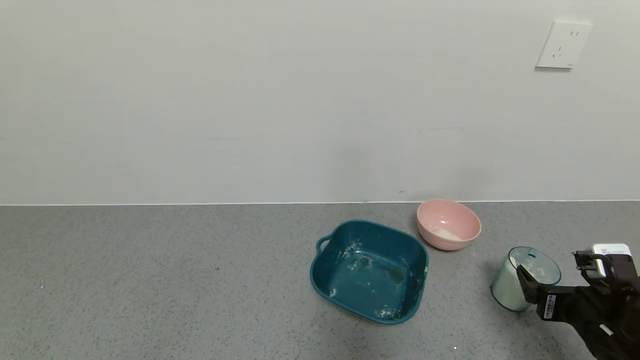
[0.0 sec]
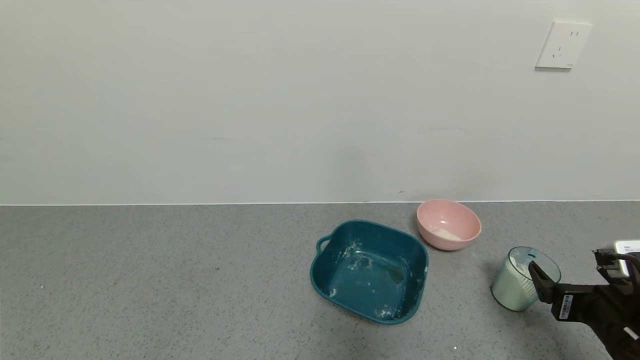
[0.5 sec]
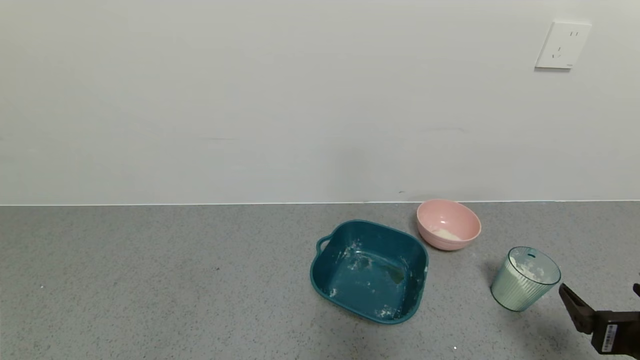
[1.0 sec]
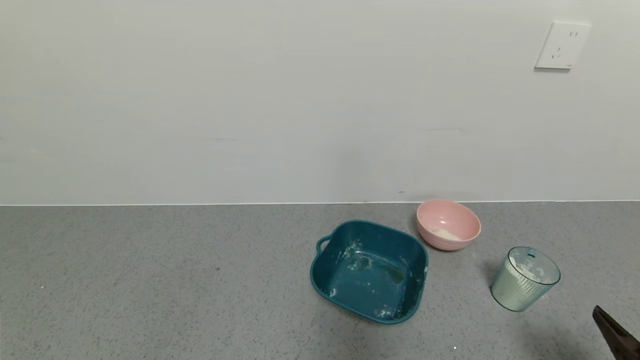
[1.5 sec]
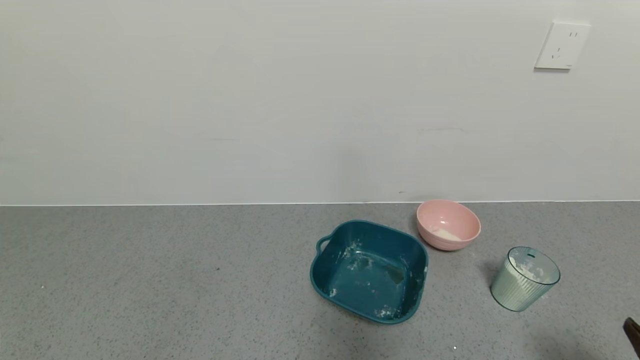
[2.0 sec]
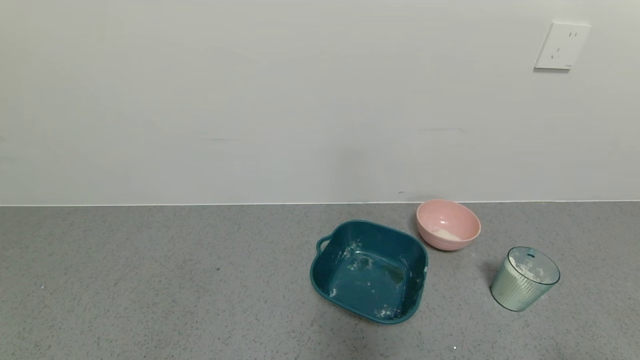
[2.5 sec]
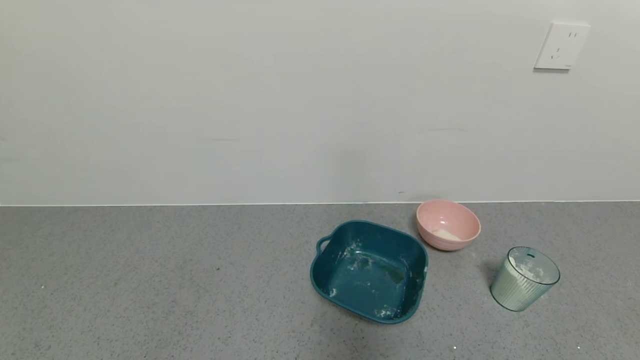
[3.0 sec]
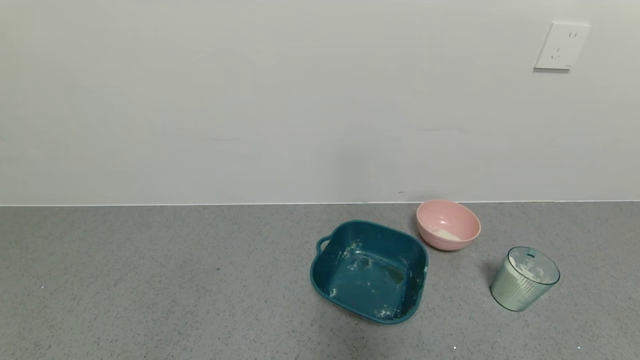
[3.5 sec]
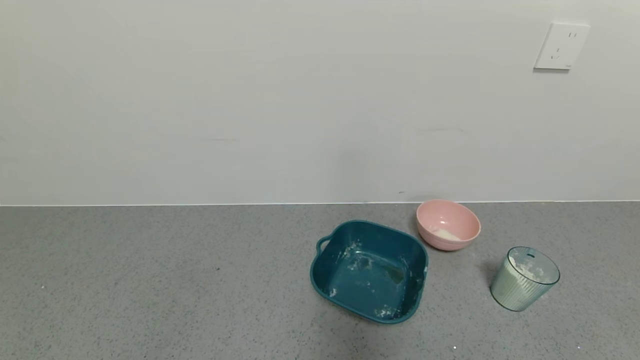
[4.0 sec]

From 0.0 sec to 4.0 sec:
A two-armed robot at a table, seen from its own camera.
Task of the whole recording: use a gripper to pick up the cup and pour the powder into a bowl or tray.
From 0.0 sec to 2.0 sec: The right gripper heads backward, covering approximately 15 cm.

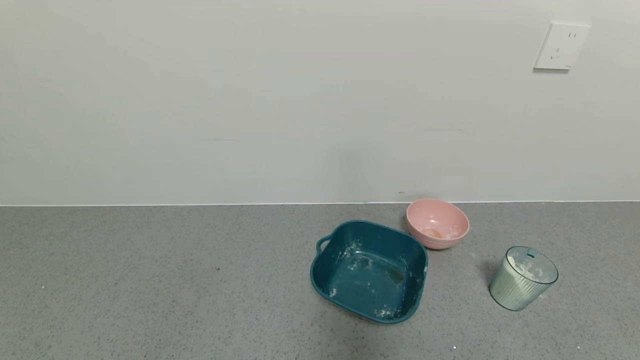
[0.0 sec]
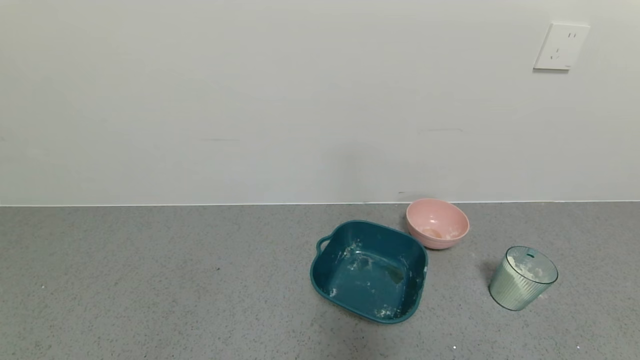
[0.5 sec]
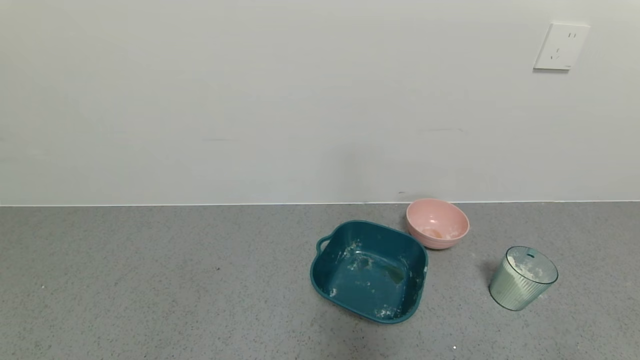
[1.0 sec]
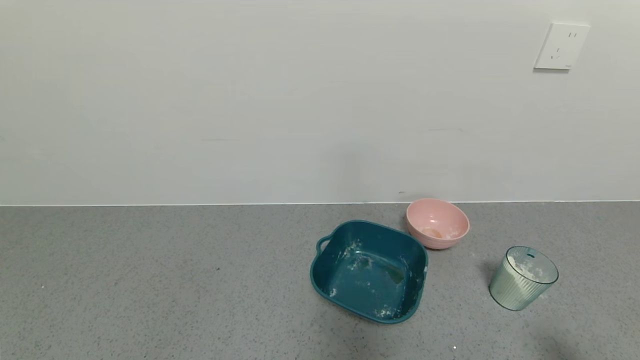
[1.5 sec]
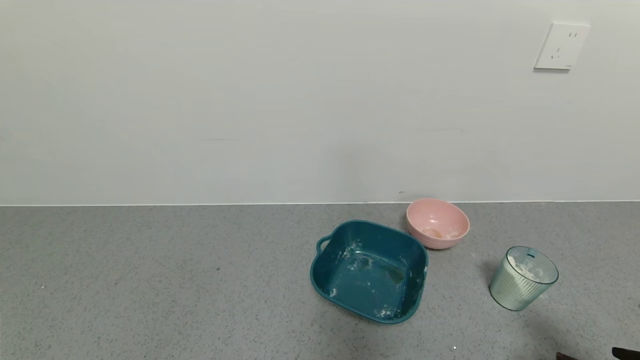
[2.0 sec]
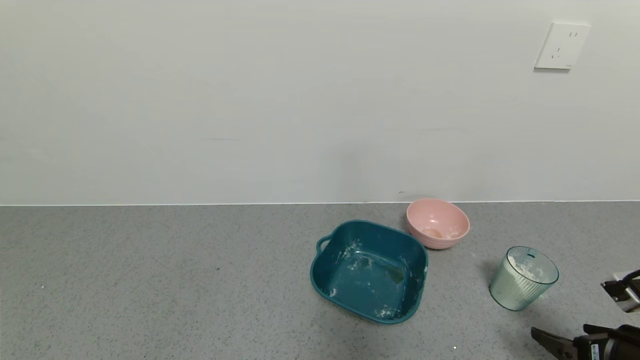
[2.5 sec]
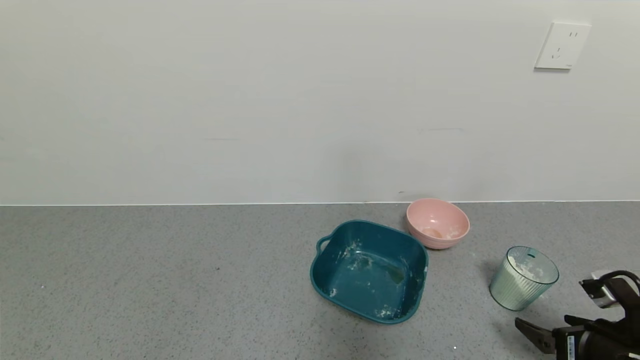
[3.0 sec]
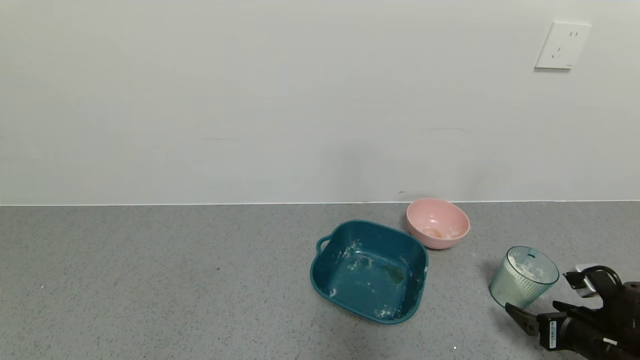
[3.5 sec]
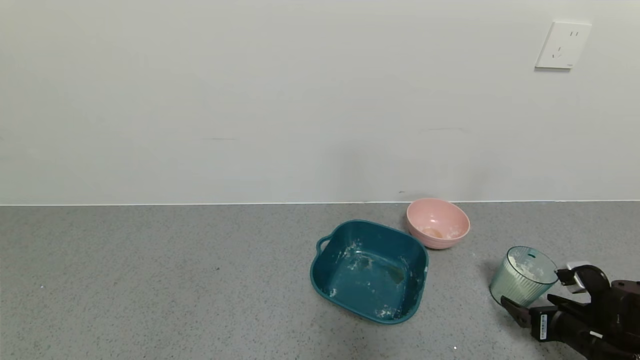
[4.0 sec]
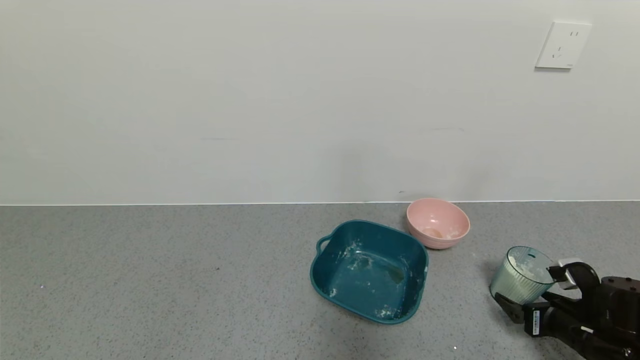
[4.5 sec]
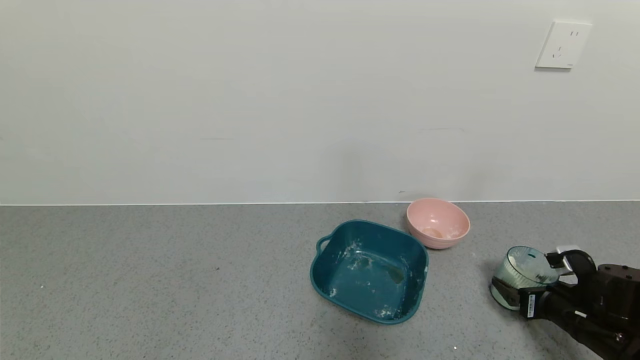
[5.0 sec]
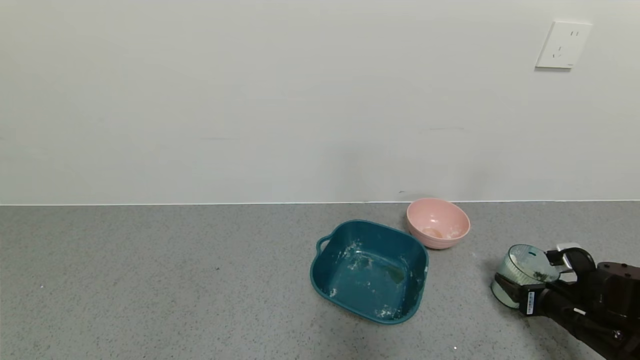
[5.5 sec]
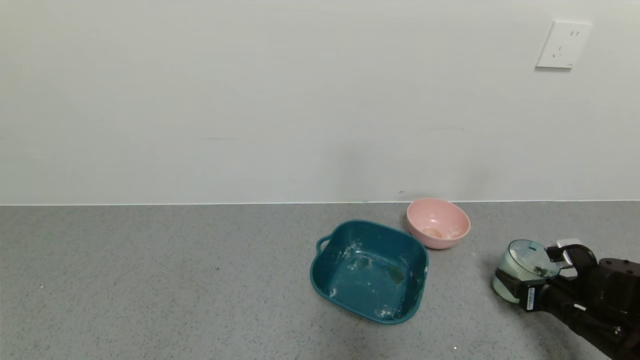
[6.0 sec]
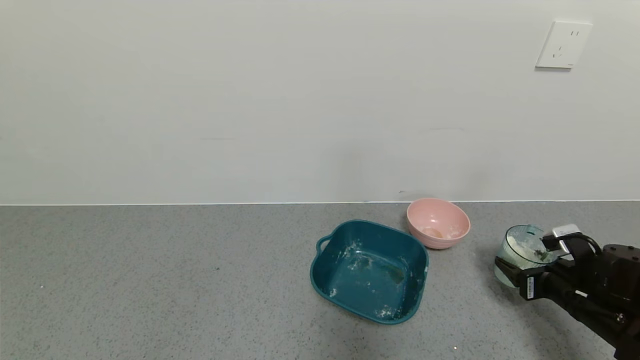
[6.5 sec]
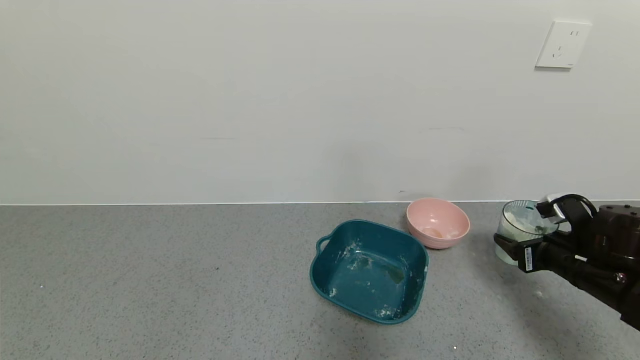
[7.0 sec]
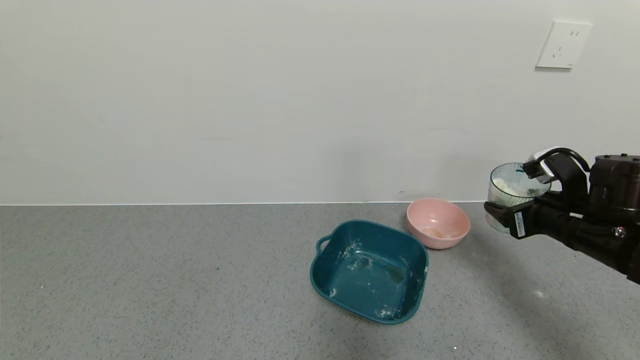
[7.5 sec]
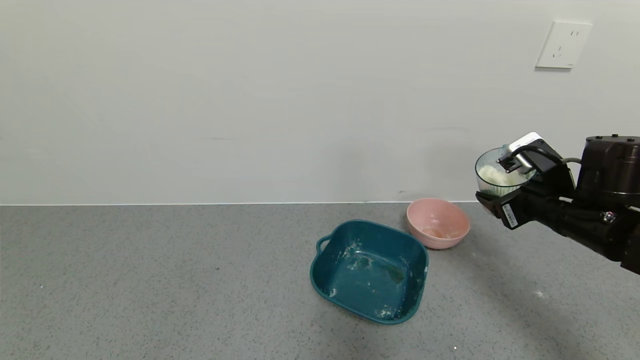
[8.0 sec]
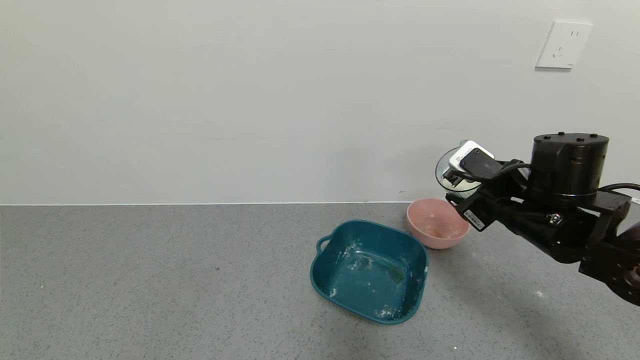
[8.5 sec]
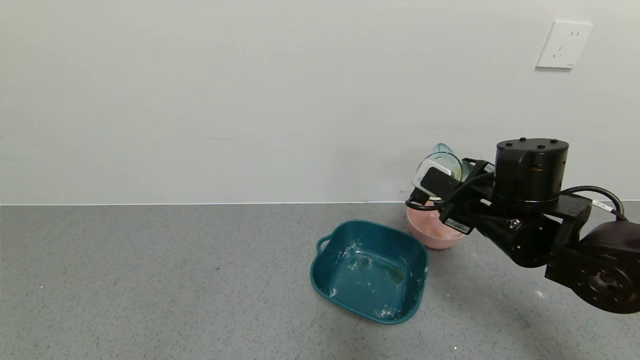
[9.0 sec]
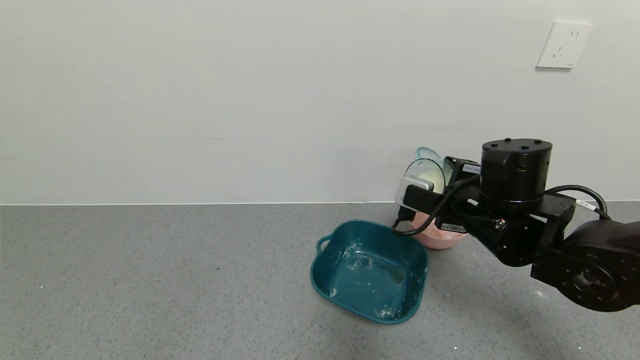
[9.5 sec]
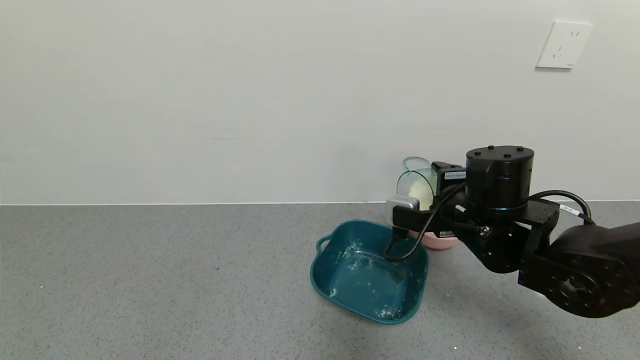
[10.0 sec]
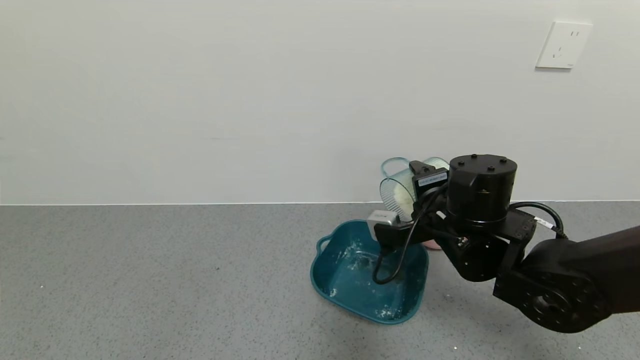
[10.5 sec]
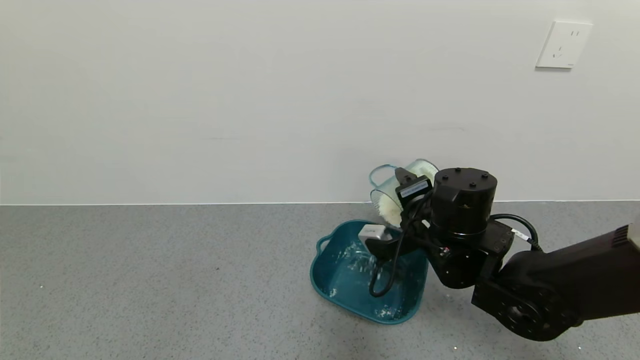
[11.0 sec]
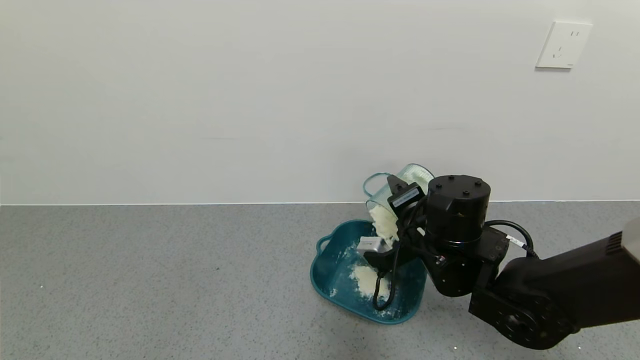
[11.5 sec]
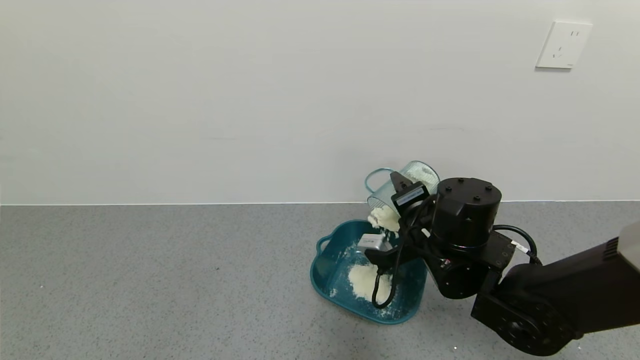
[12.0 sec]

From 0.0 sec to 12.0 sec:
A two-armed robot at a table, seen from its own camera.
Task of the whole recording: use a gripper to pick up the cup and pour the powder into a bowl or tray.
Step, from 0.0 sec to 6.0 sec: Pick up blue cup filled with milk powder with right gripper.
From 0.0 sec to 2.0 sec: The right gripper travels forward by roughly 15 cm.
From 2.0 sec to 4.0 sec: The right gripper travels forward and downward by roughly 15 cm.
From 4.0 sec to 6.0 sec: The right gripper closes its fingers.
From 6.0 sec to 8.0 sec: The right gripper heads upward and to the left, covering some 20 cm.
From 8.0 sec to 10.0 sec: The right gripper is displaced to the left by approximately 10 cm.
From 10.0 sec to 12.0 sec: The right gripper changes place by about 5 cm.

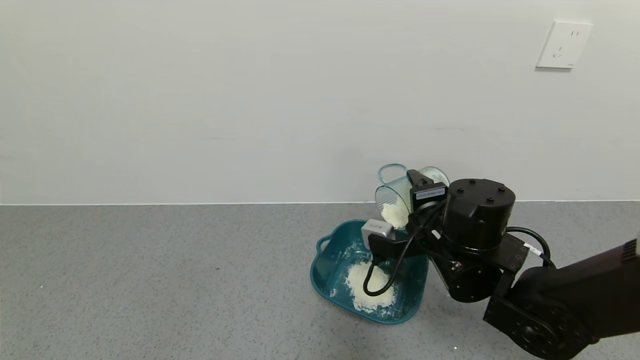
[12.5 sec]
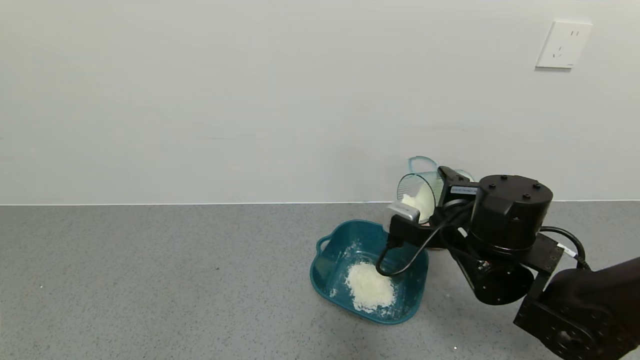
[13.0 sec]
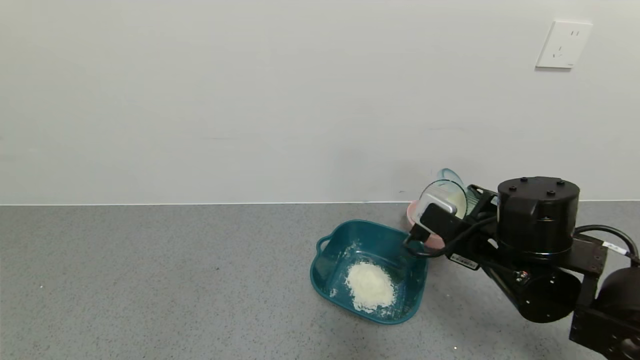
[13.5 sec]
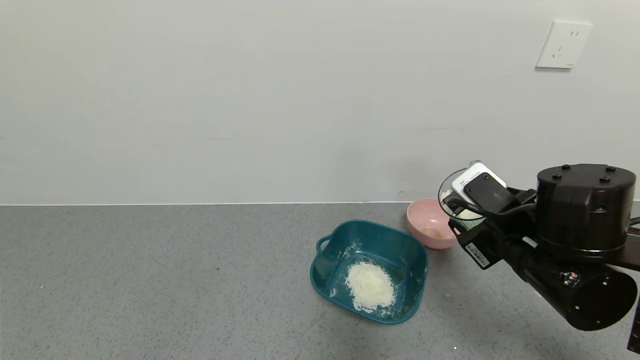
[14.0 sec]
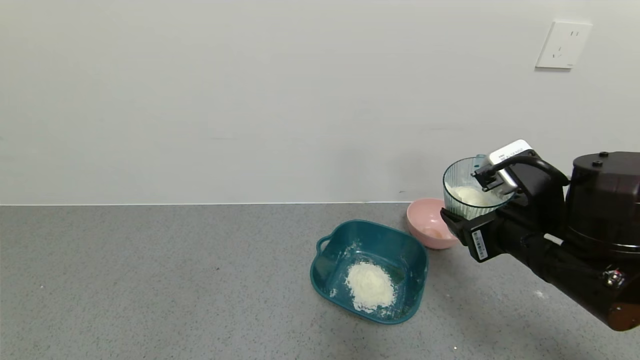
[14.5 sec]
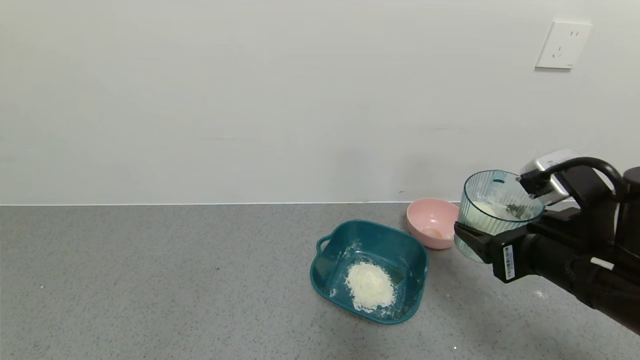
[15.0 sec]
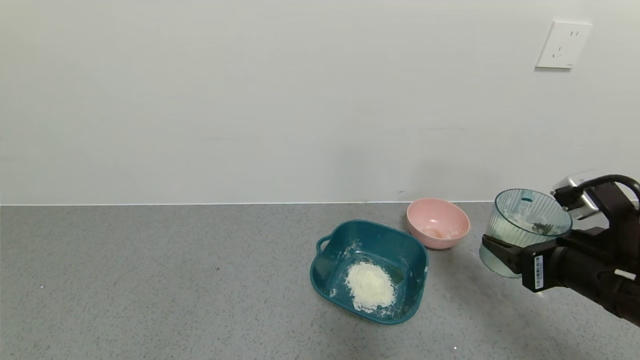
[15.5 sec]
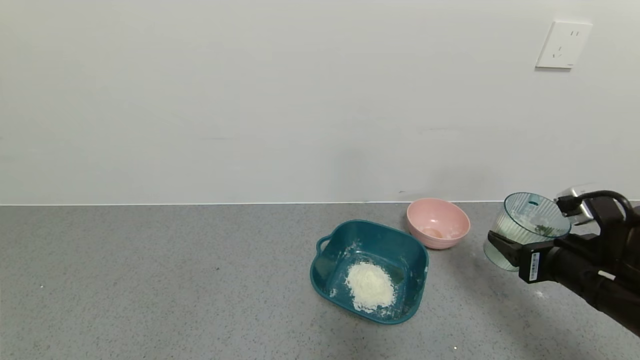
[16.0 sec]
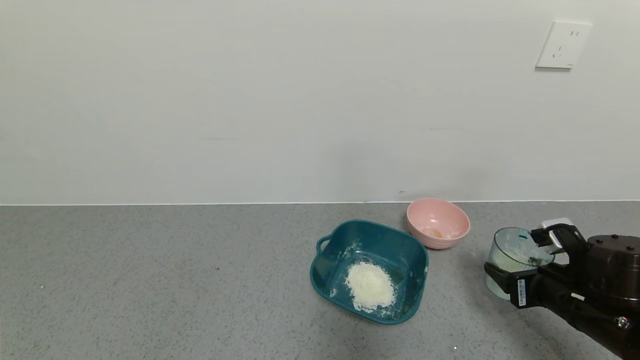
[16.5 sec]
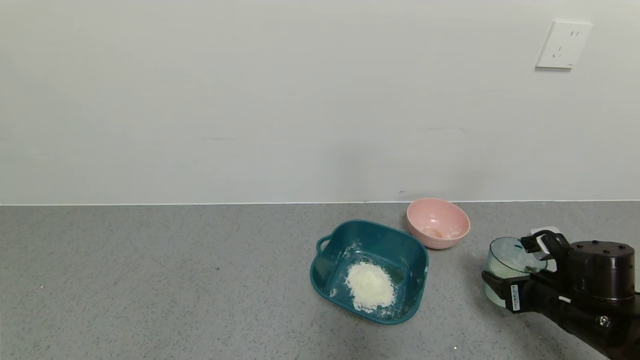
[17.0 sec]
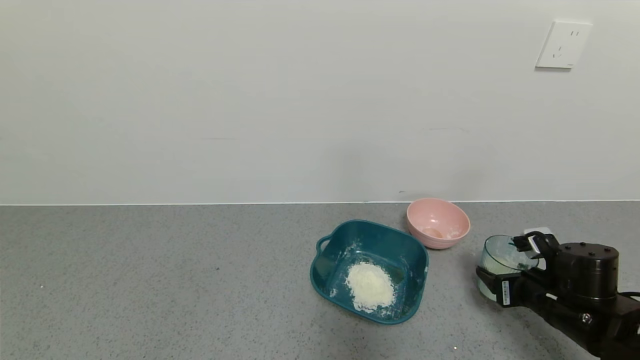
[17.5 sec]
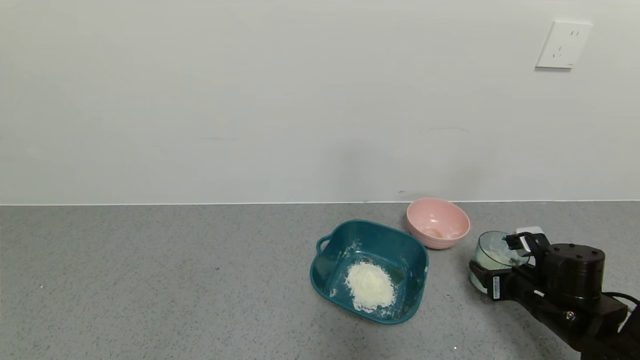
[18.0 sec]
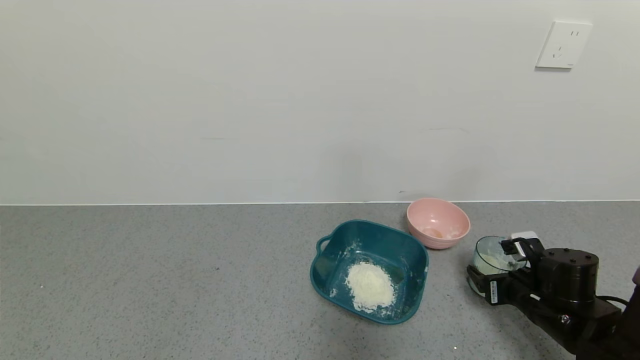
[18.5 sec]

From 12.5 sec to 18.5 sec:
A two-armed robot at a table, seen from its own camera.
Task of the whole recording: use a gripper to pick up the cup and pour the powder into a bowl or tray.
From 12.5 sec to 14.5 sec: The right gripper heads to the right, backward and upward, covering approximately 10 cm.
From 14.5 sec to 16.5 sec: The right gripper shifts roughly 15 cm downward and to the right.
From 16.5 sec to 18.5 sec: The right gripper travels downward by some 5 cm, and opens up.
